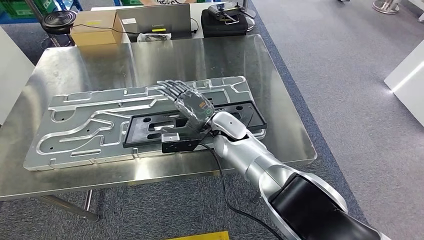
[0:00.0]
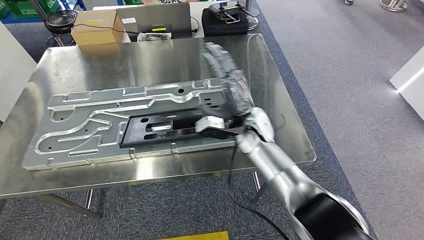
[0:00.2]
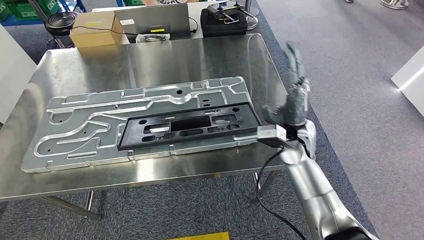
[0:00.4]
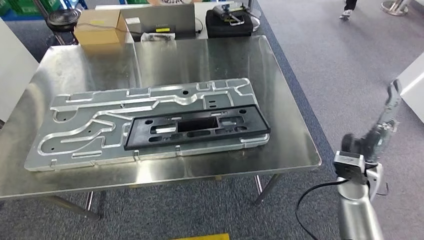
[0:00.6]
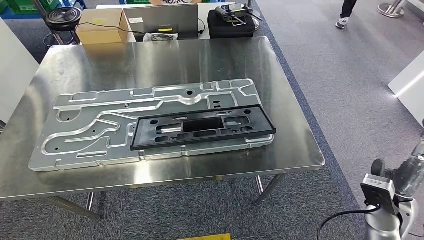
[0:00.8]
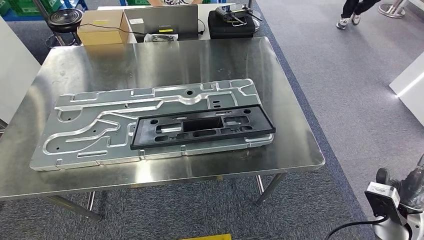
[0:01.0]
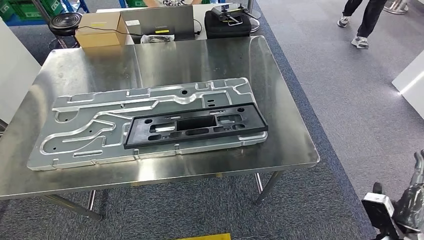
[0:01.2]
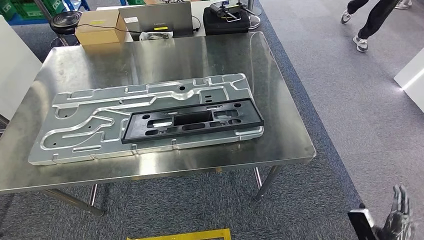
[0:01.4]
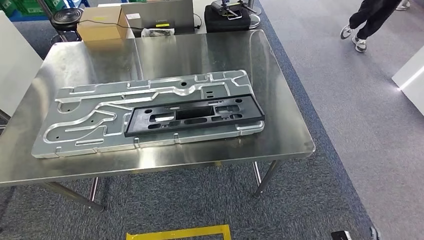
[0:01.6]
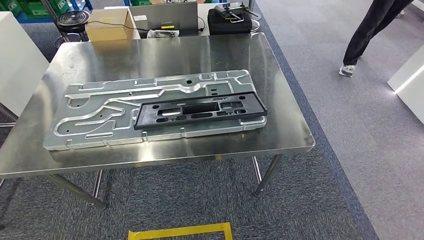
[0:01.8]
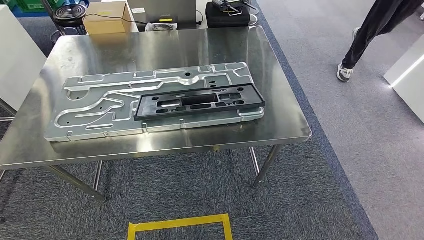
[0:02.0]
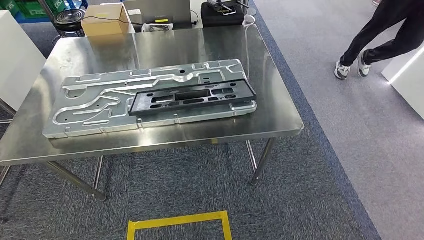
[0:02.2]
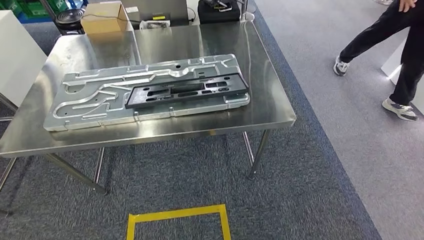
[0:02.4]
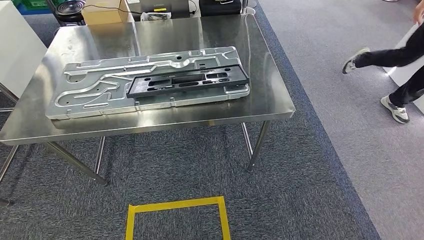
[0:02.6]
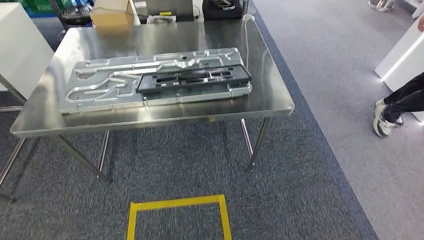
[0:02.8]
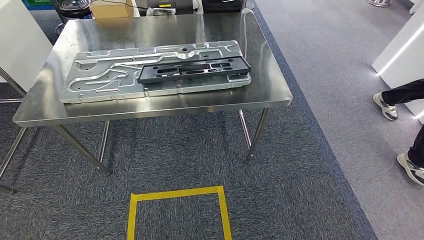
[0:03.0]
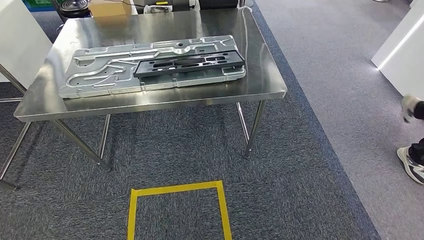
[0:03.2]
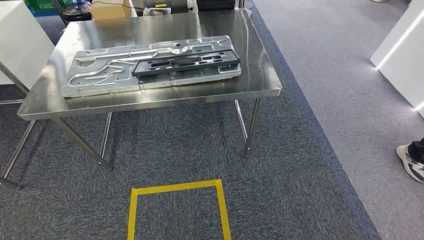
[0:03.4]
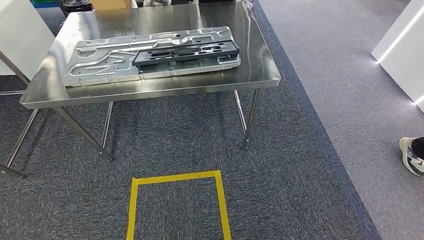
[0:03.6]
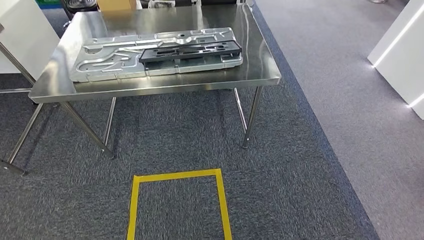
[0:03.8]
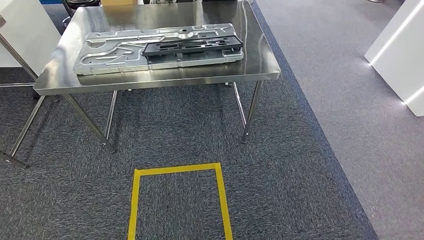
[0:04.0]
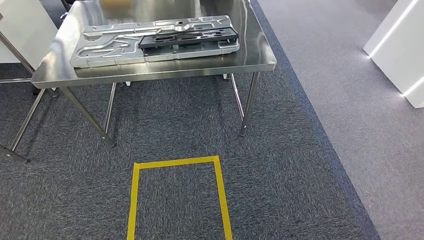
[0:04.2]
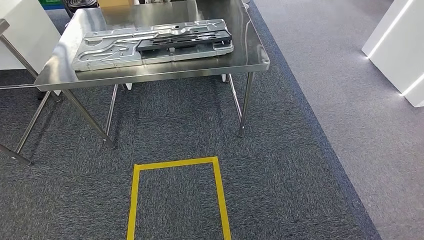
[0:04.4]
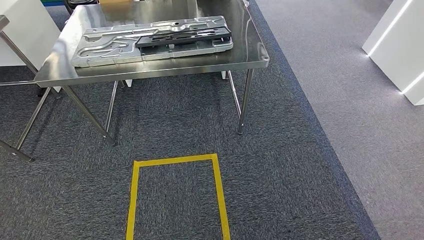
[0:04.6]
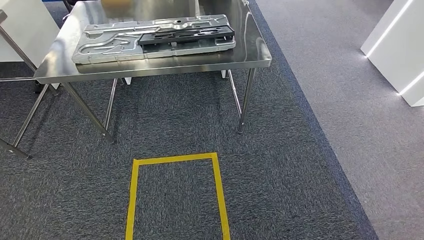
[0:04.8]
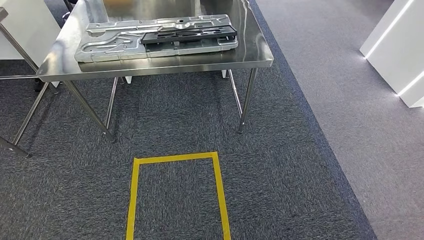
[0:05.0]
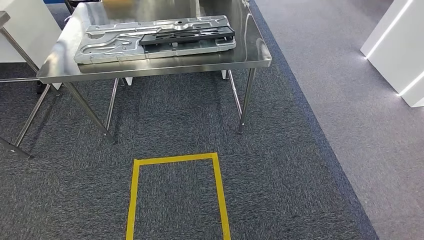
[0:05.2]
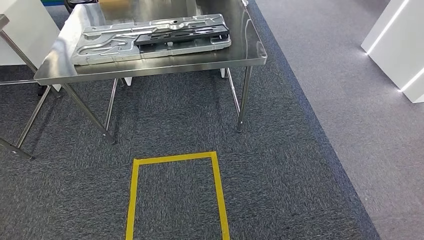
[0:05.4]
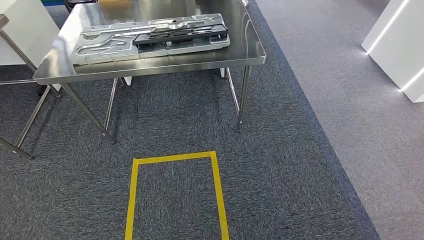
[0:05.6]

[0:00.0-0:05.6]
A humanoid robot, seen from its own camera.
Step, 0:01.8 to 0:05.6: Move to the initial position of the shelf.
0:04.2 to 0:05.6: The hands move only a little.
